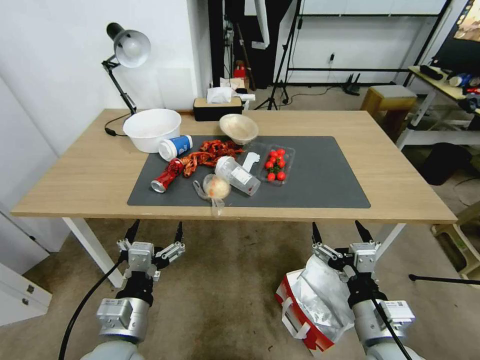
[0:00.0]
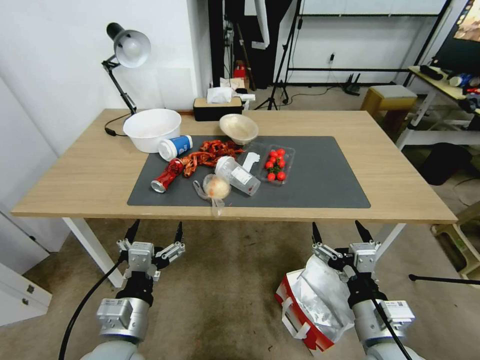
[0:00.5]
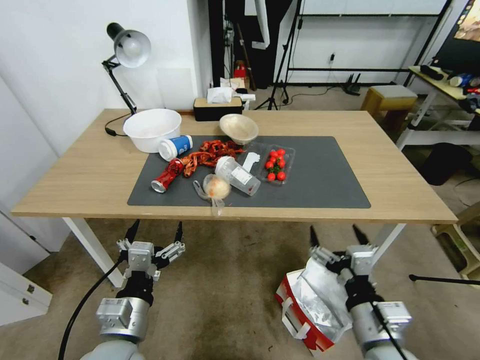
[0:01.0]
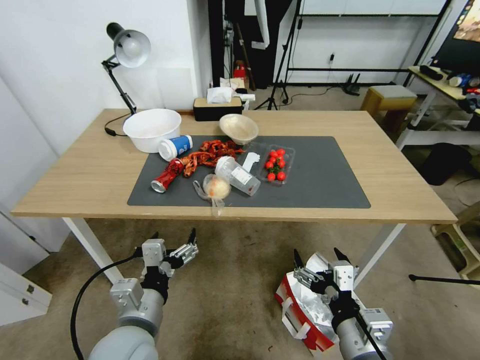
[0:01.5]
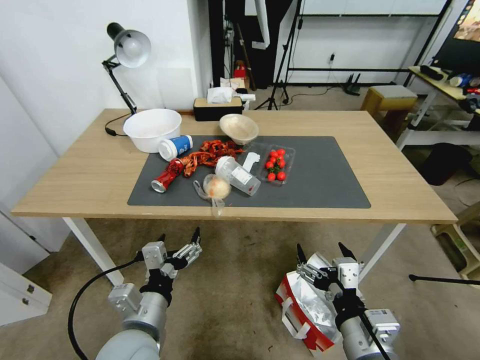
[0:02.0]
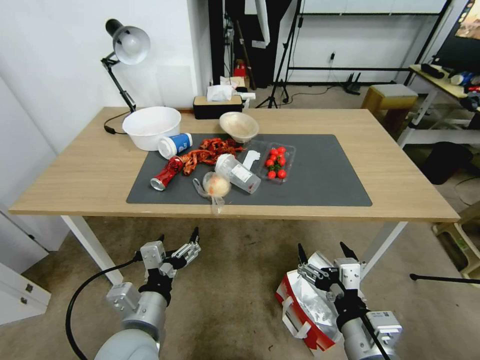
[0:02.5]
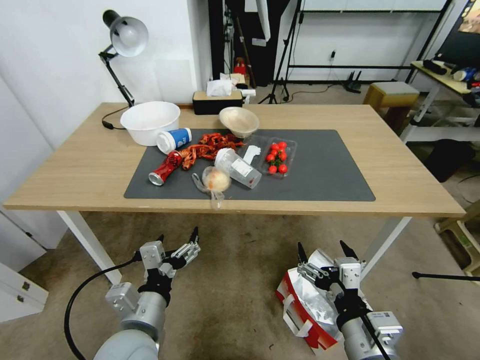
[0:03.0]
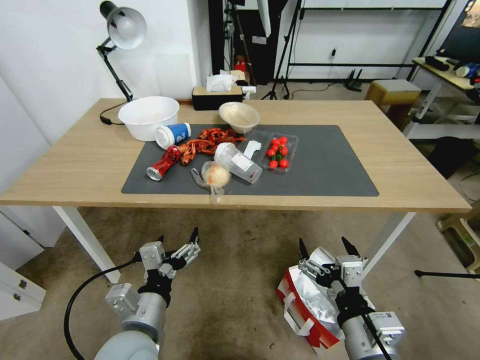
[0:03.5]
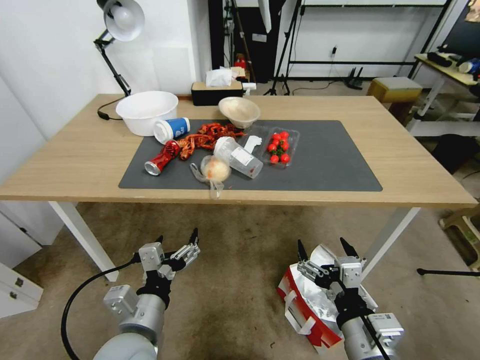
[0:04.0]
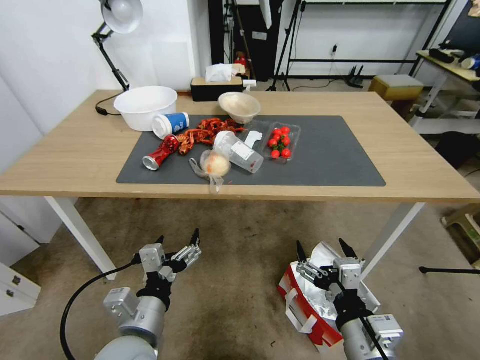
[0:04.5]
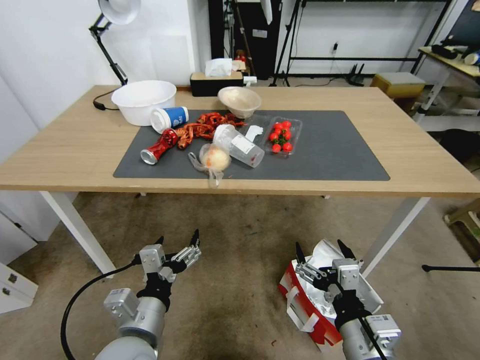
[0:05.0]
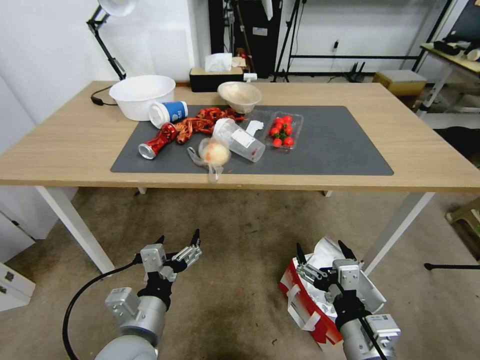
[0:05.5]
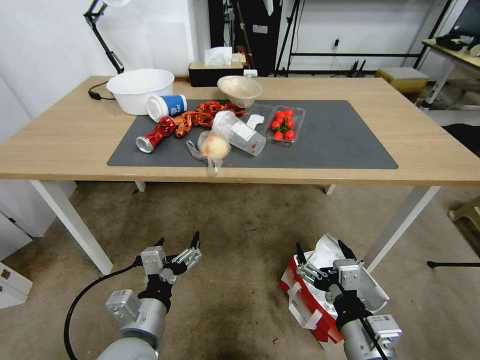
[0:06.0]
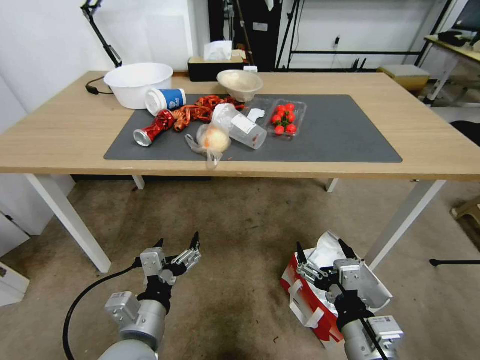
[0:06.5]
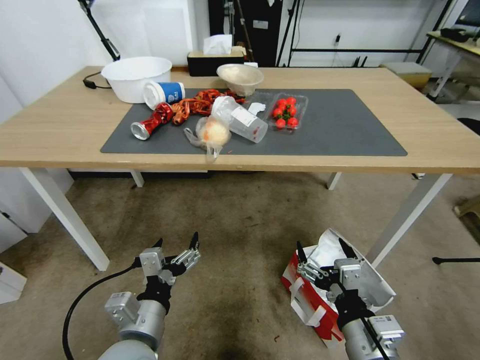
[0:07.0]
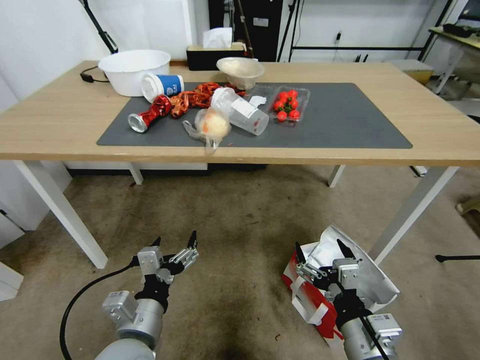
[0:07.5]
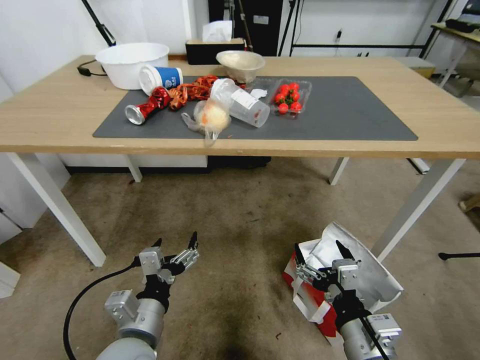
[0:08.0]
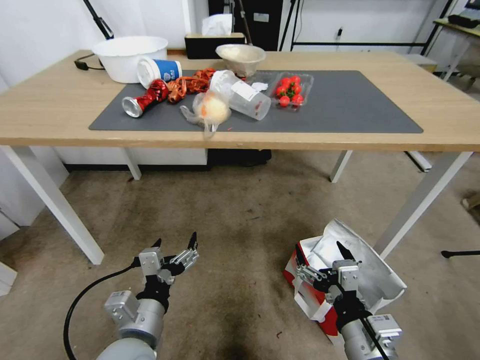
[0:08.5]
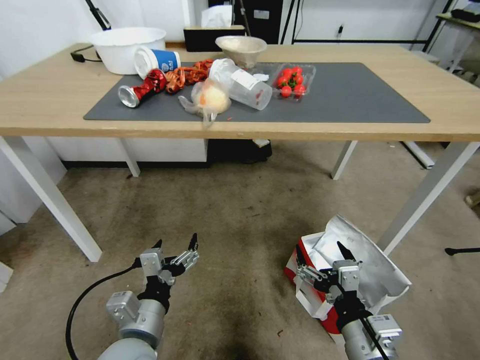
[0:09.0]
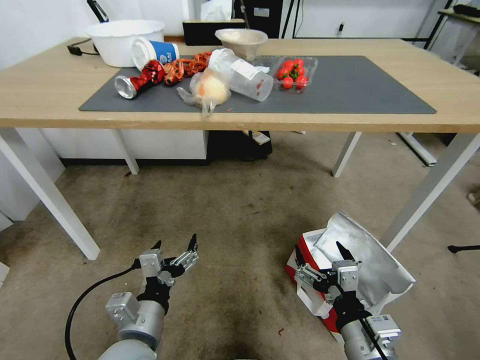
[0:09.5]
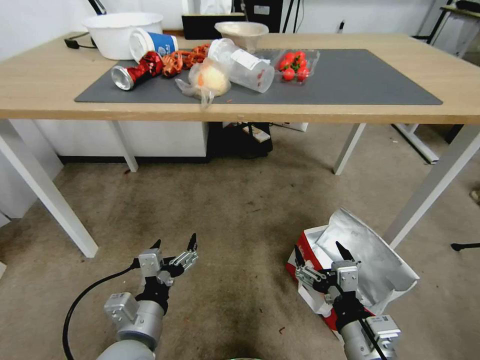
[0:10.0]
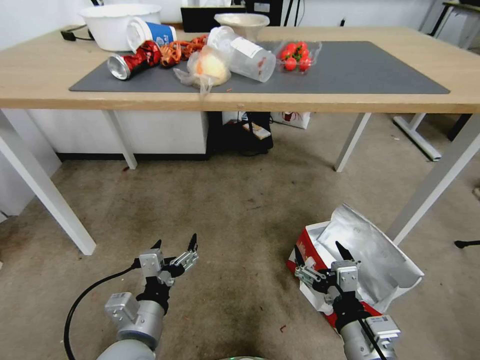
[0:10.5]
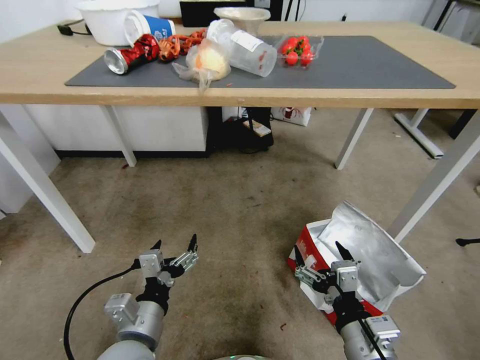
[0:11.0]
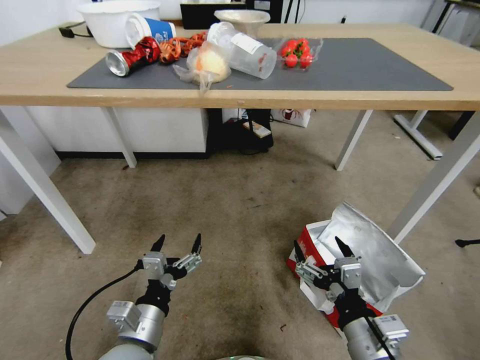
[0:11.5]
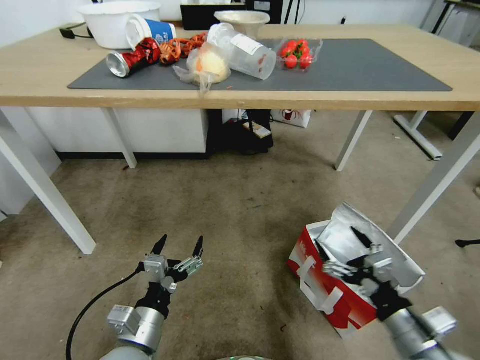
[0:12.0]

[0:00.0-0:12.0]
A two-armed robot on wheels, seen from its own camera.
Task of the whole recording: Pick up the food delivery bag from the floor and place it on the table.
0:10.0 to 0:12.0: The right gripper goes approximately 15 cm to the right.

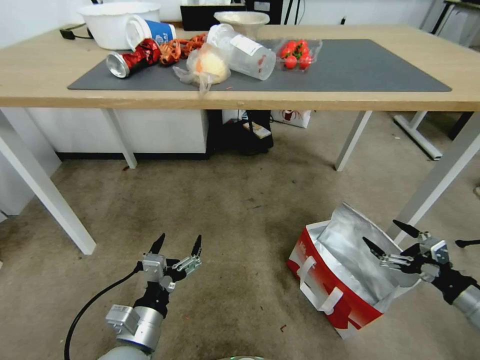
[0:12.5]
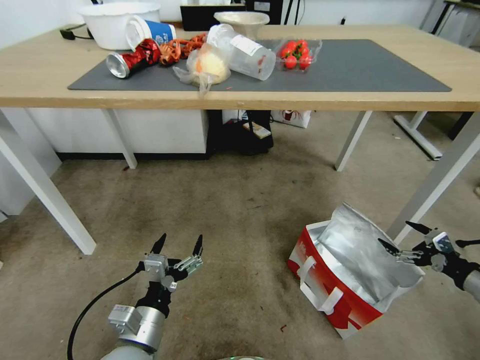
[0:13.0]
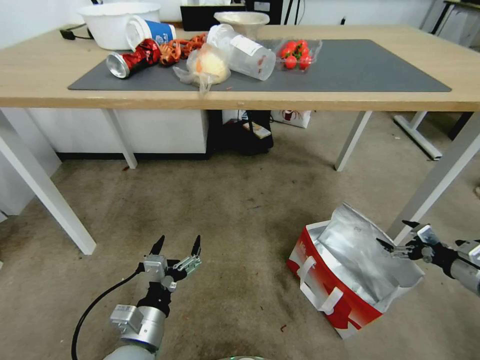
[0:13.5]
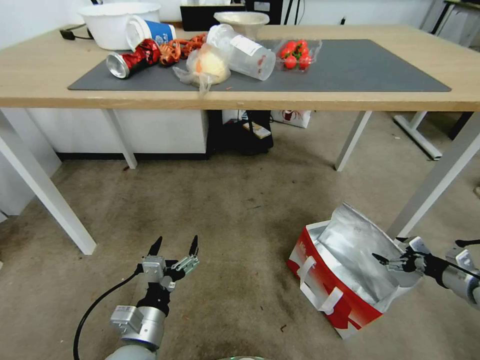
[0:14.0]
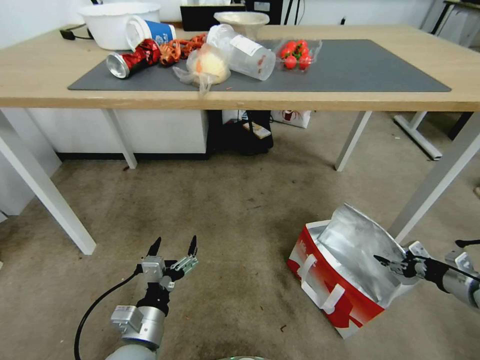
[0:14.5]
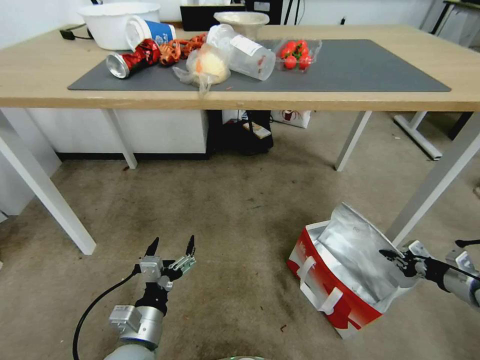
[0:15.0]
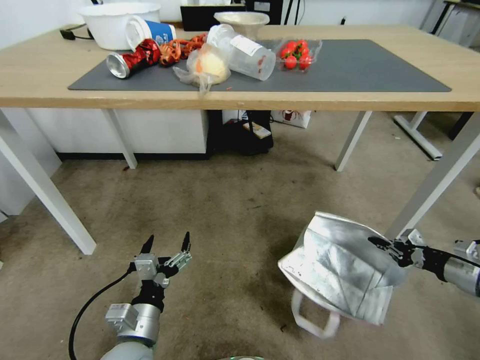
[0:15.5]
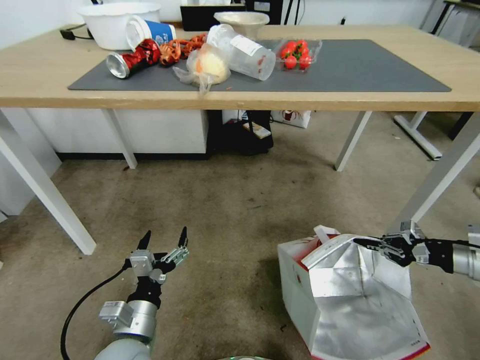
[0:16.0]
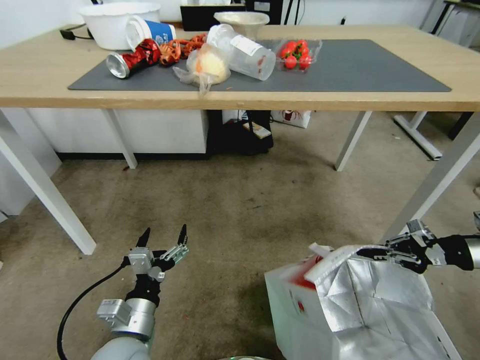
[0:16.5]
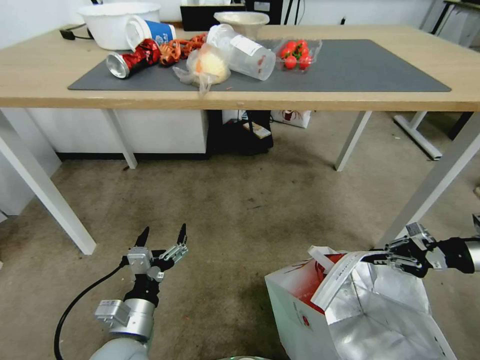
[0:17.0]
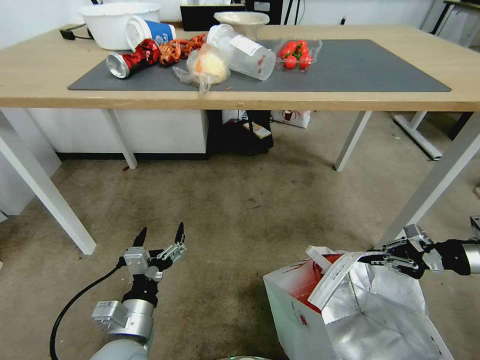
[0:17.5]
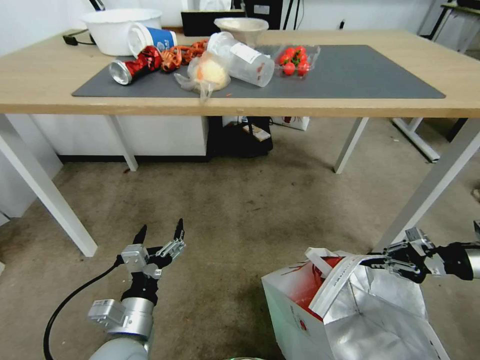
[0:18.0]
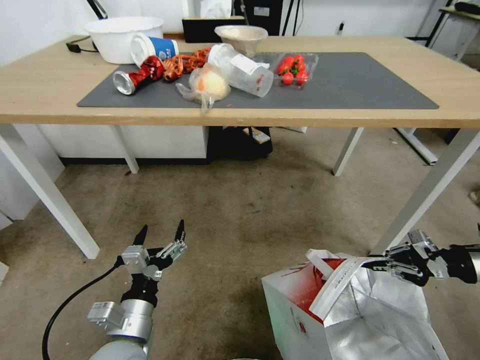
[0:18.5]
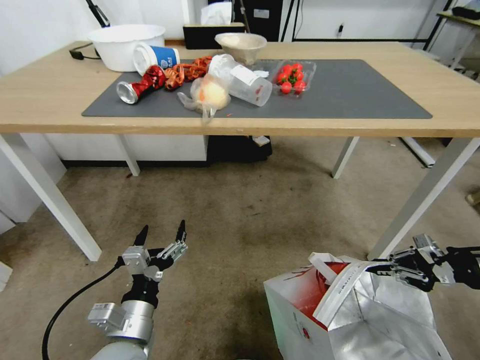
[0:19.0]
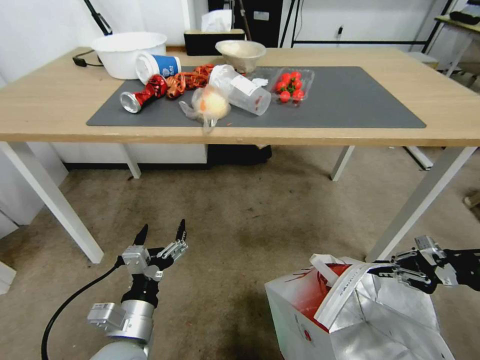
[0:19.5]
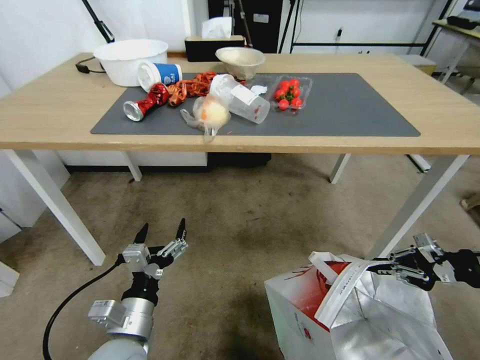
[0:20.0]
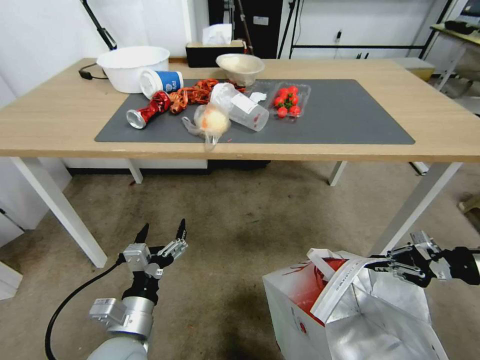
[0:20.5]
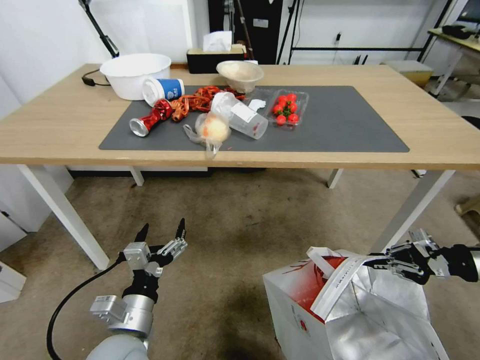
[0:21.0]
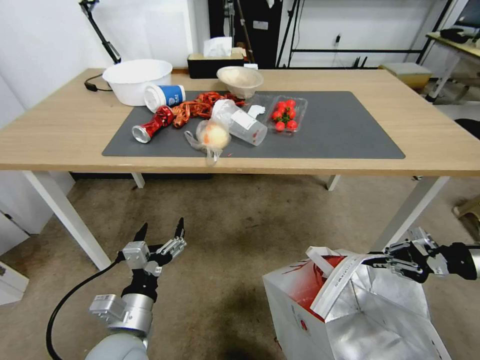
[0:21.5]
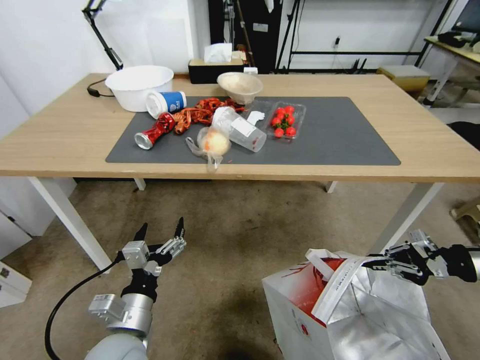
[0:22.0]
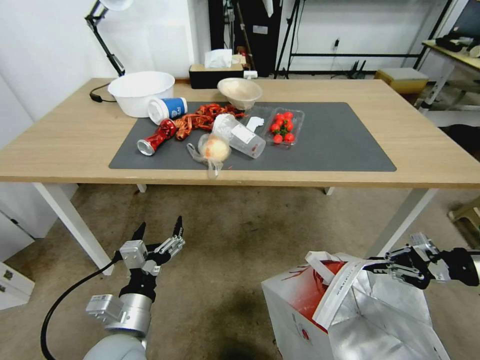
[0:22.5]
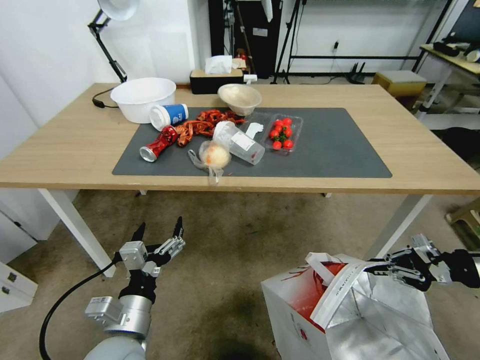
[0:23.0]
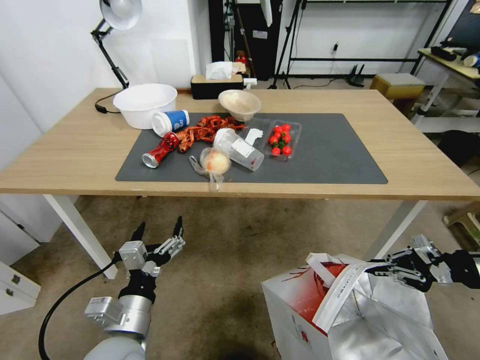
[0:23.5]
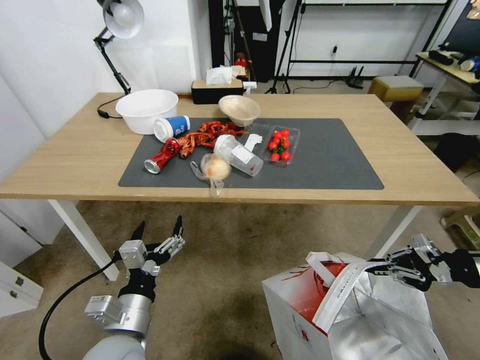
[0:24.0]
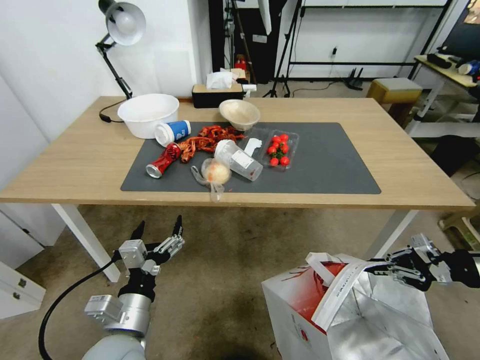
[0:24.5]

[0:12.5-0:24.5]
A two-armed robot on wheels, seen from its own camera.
Task of the whole recording: Pick up the food delivery bag from the floor and place it on the table.
0:12.5 to 0:14.5: The right gripper moves forward, to the right and downward, some 15 cm, and closes.
0:14.5 to 0:16.5: The right gripper travels upward by about 15 cm, and closes its fingers.

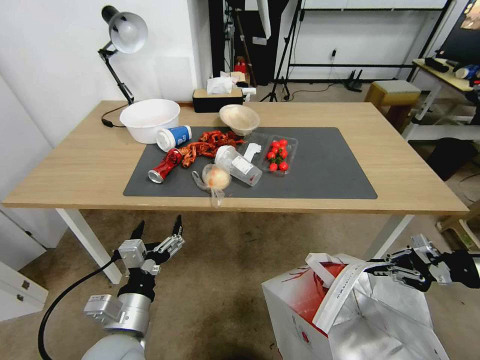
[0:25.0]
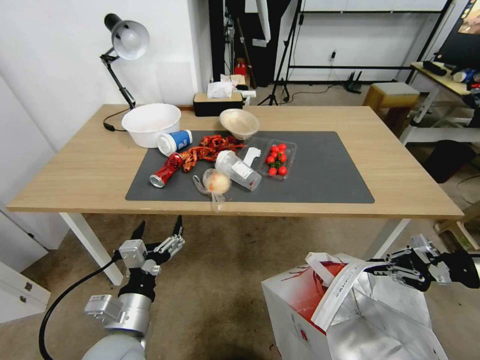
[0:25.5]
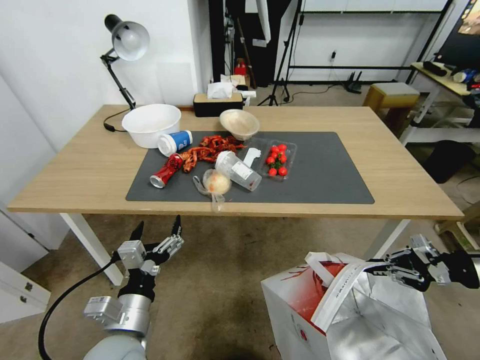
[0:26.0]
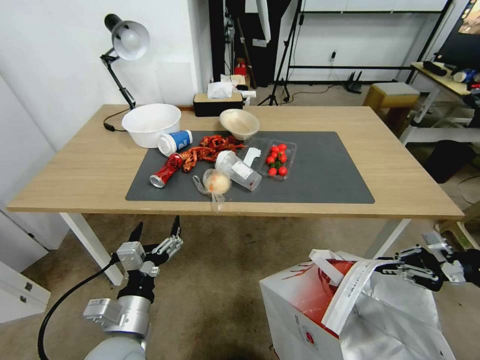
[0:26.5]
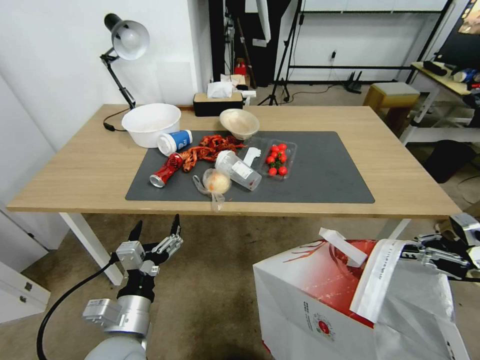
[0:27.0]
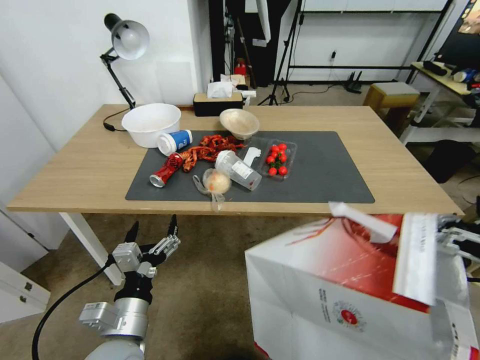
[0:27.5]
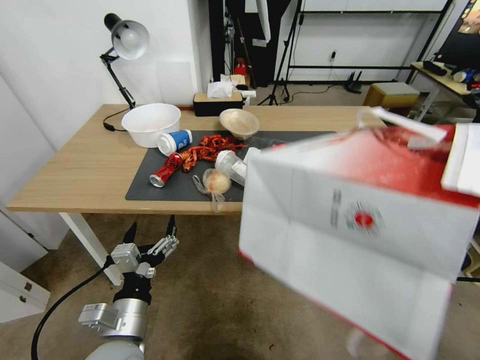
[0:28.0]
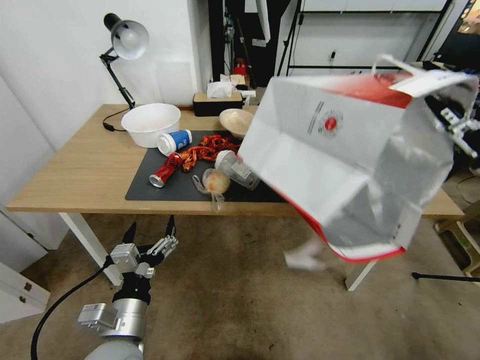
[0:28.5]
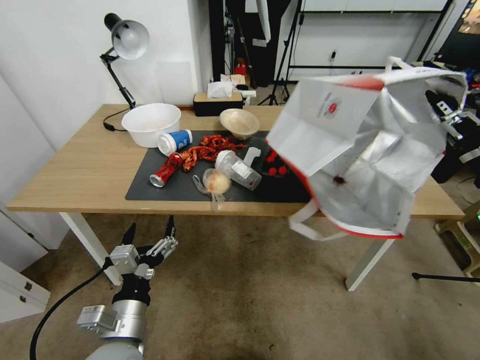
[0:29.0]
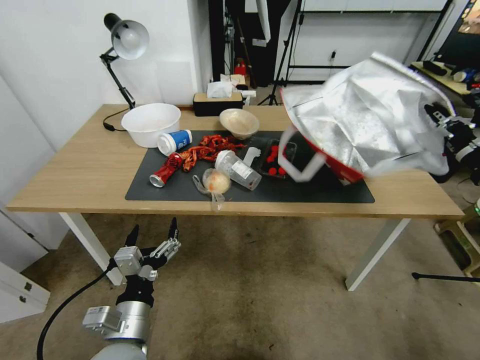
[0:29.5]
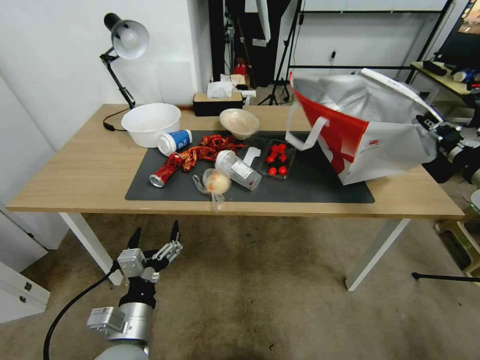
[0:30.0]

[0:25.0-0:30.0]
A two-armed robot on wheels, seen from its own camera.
Task of the whole recording: Pick up the food delivery bag from the floor and place it on the table.
0:25.0 to 0:27.5: The right gripper shifts by roughly 5 cm.
0:27.5 to 0:30.0: The right gripper is displaced to the left and upward by approximately 15 cm.
